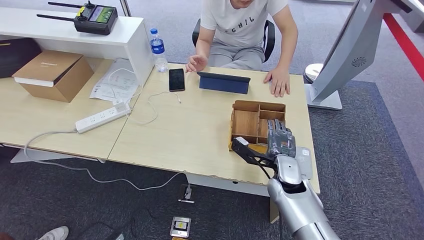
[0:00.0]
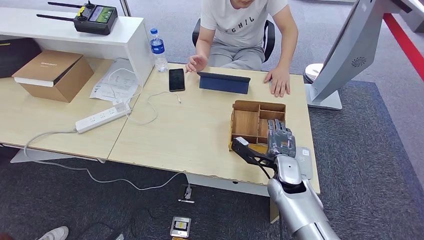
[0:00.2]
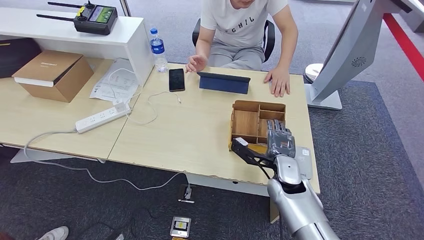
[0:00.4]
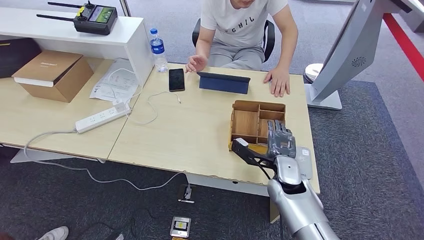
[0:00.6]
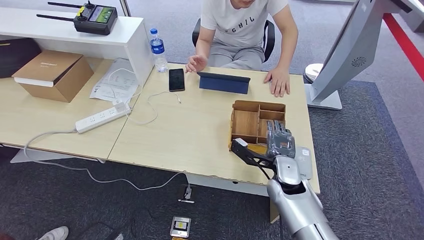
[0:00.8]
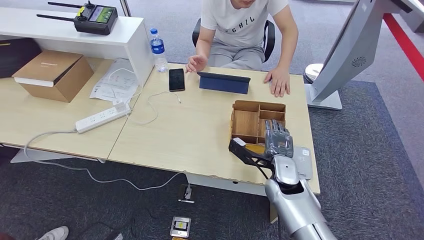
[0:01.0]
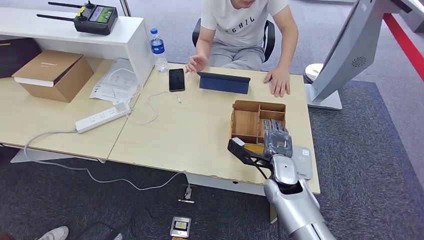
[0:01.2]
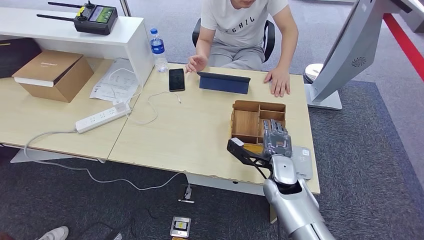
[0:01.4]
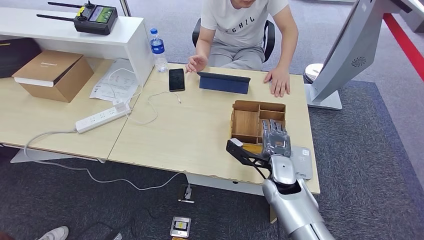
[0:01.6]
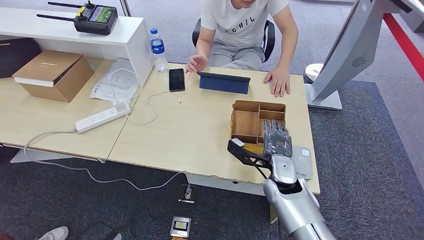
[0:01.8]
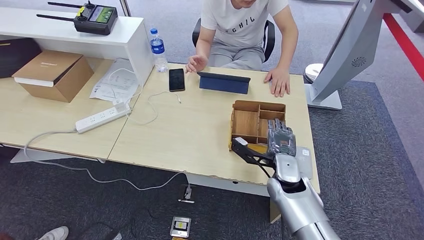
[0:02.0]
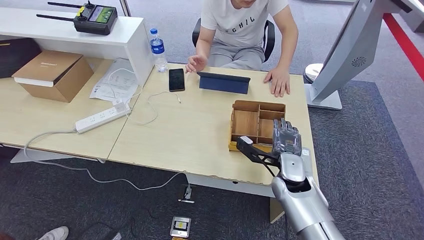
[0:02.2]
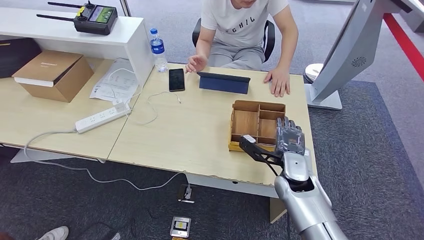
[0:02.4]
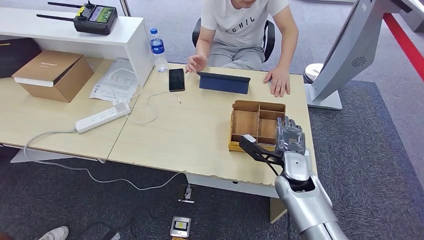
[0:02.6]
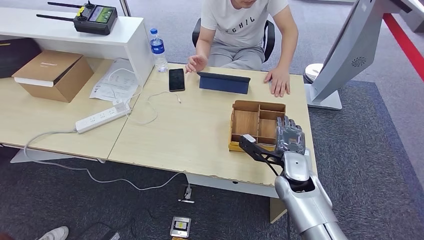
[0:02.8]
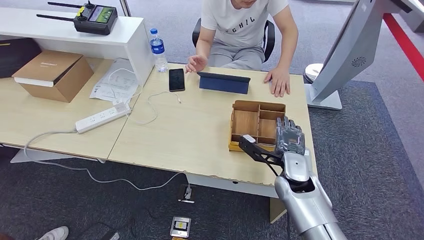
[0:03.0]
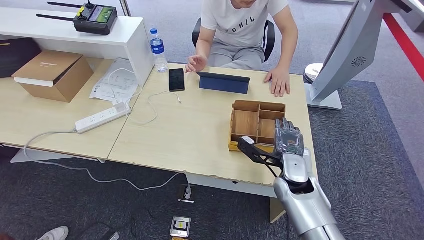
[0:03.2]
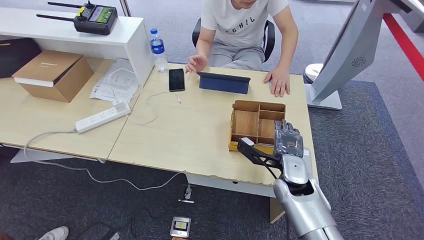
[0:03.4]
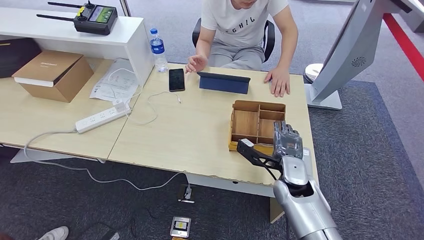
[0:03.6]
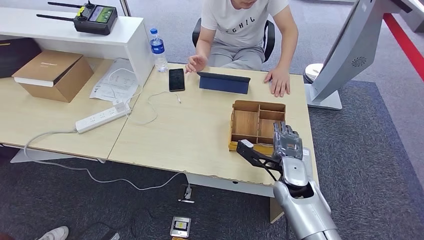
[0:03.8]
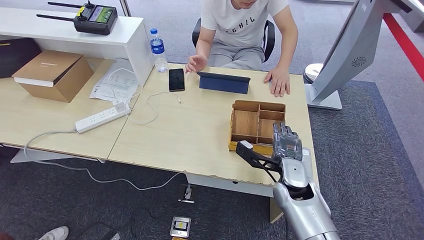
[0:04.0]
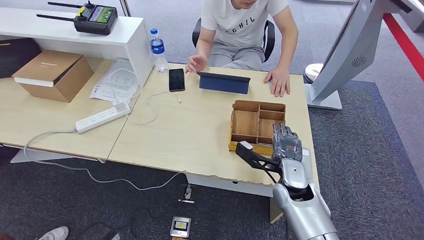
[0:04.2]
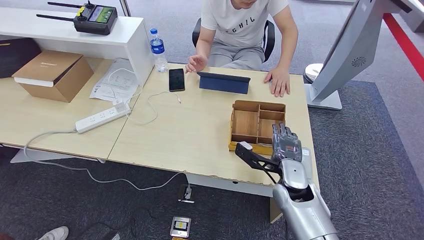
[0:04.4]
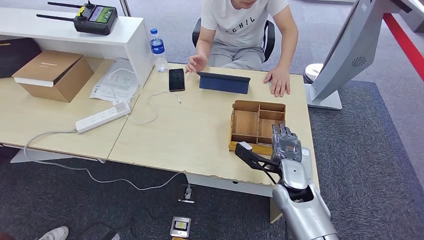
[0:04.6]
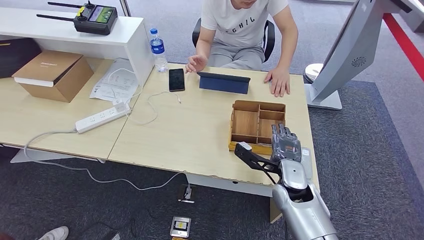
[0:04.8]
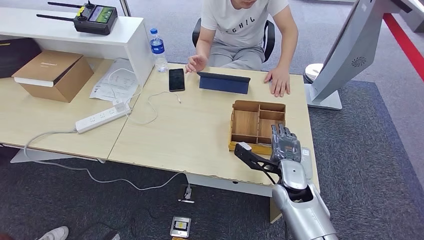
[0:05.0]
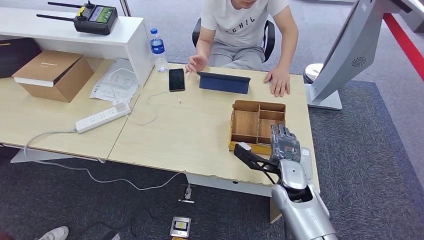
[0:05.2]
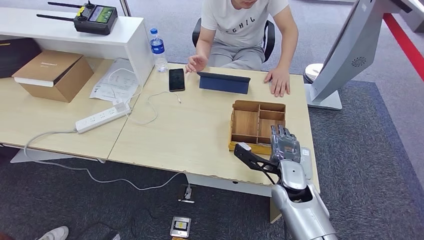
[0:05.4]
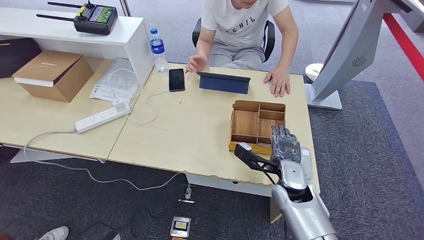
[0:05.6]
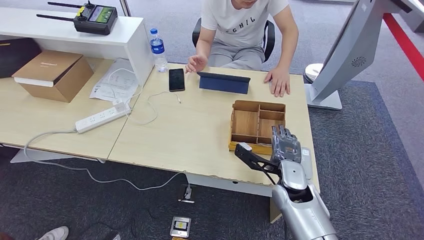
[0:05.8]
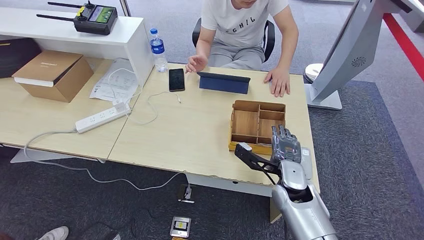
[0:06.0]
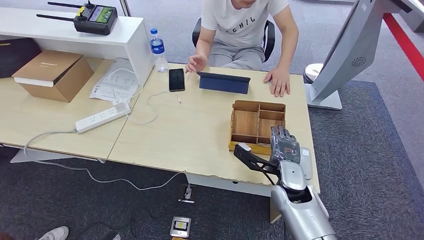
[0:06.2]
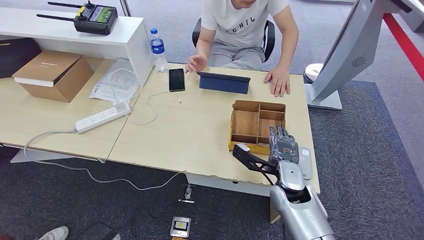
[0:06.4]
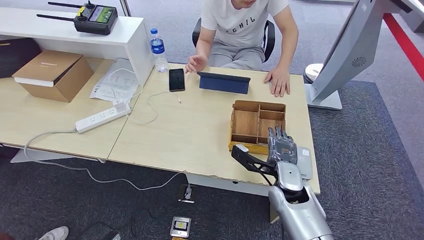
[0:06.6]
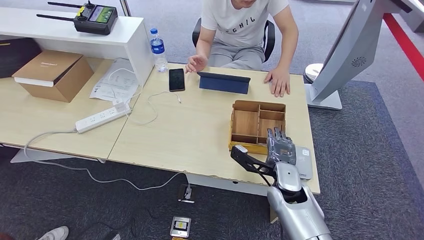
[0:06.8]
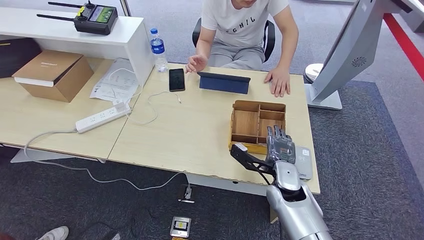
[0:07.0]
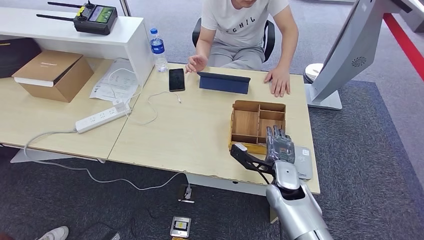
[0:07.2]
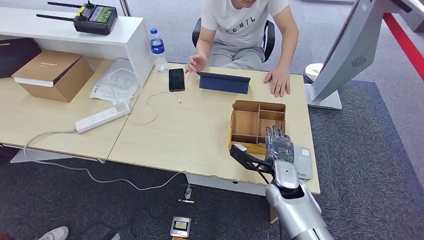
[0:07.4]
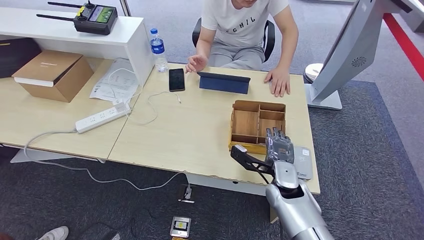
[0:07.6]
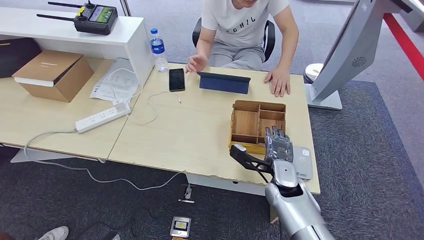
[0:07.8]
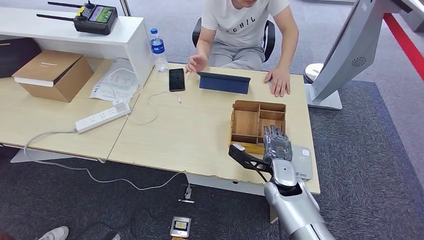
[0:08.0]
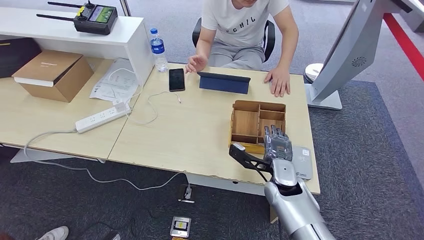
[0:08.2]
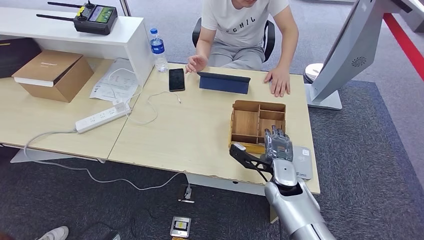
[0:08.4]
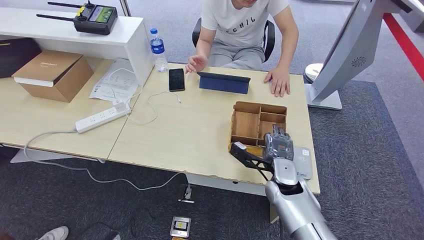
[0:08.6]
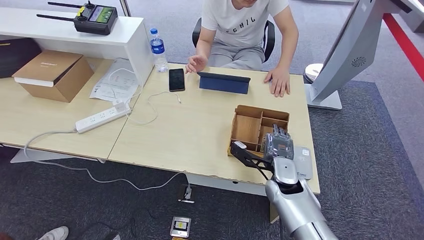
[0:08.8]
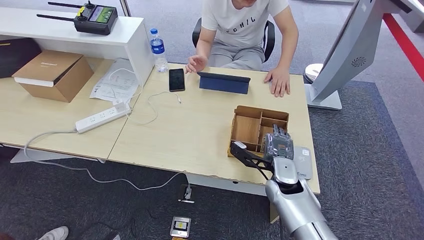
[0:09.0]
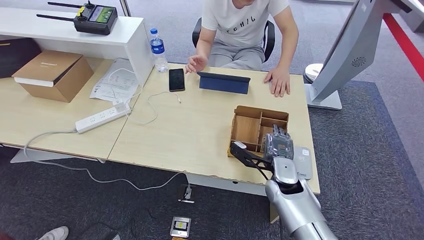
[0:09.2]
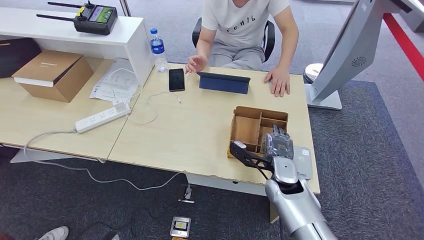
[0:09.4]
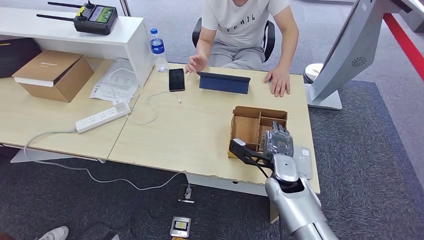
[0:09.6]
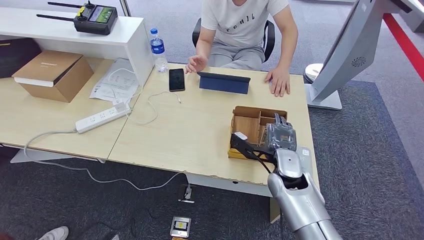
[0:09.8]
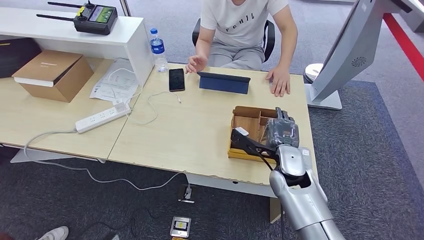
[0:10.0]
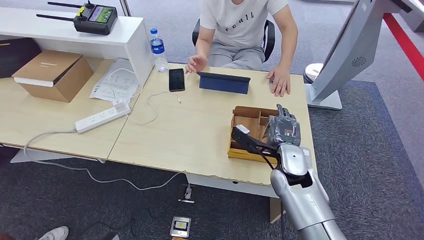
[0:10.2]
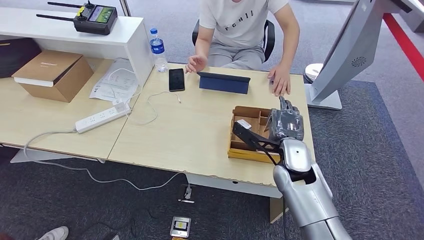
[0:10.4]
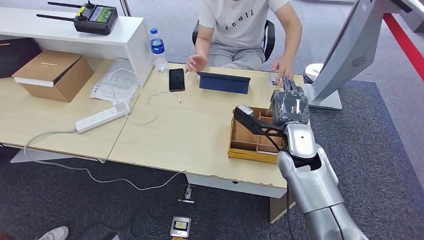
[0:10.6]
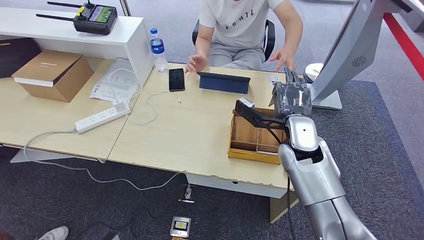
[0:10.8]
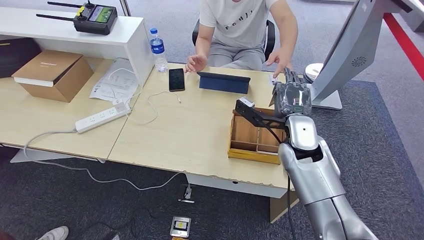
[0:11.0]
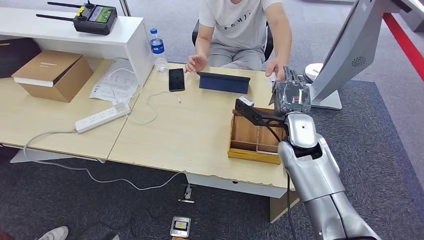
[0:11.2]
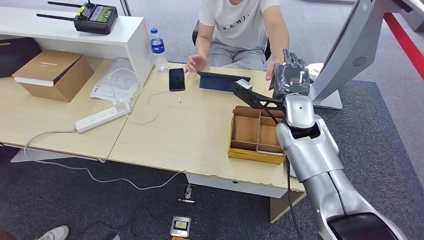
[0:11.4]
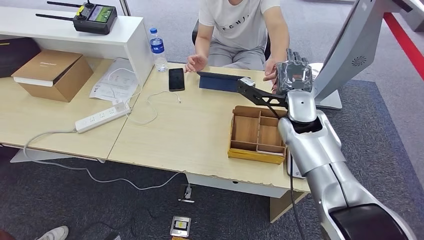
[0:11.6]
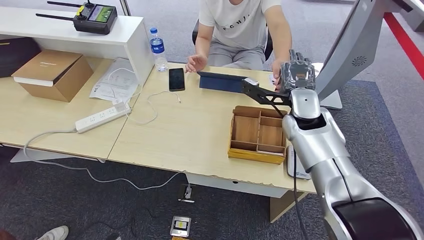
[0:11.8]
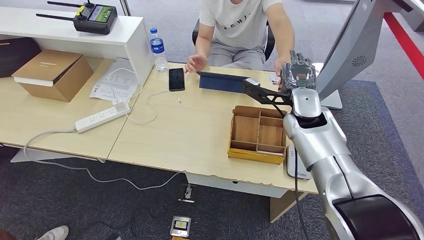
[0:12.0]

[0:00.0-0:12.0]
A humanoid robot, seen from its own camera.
Step, 0:00.0 to 0:10.8: Pick up the room key from the key card box.
0:00.0 to 0:04.4: The hands move only a little.
0:04.4 to 0:06.0: The two hands keep their place.
0:06.0 to 0:07.6: The hands stay close to where they were, moving slightly.
0:07.6 to 0:09.0: The two hands keep their place.
0:09.0 to 0:10.4: The right hand goes some 5 cm upward.
0:10.4 to 0:12.0: The right hand heads upward and forward, covering about 15 cm.

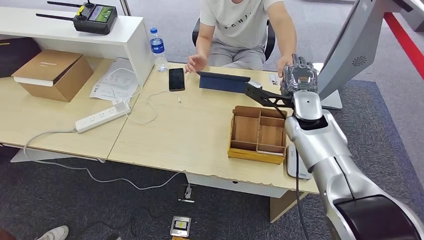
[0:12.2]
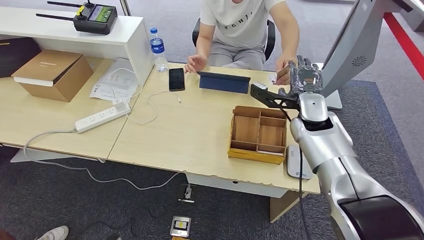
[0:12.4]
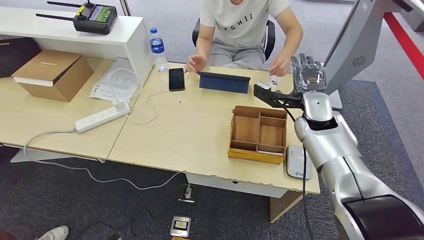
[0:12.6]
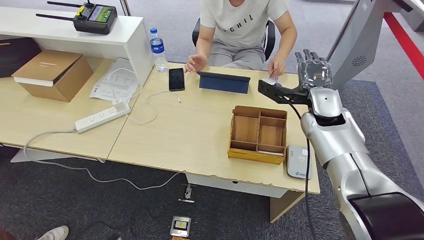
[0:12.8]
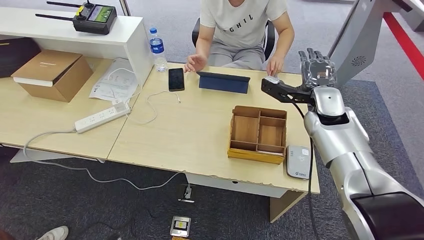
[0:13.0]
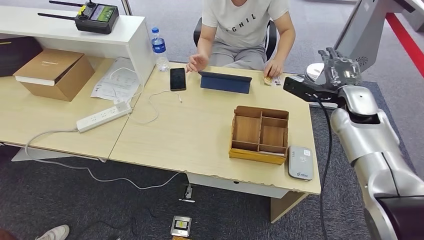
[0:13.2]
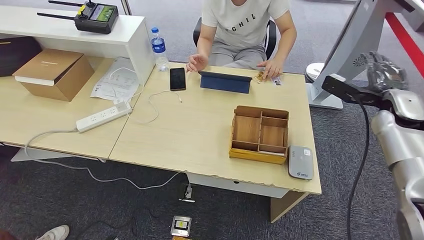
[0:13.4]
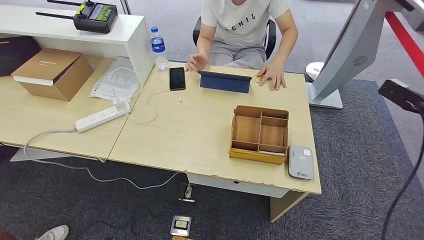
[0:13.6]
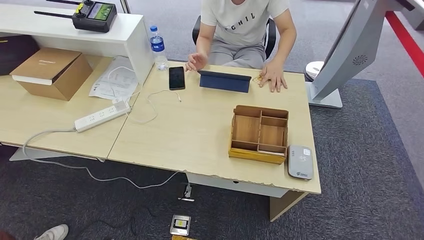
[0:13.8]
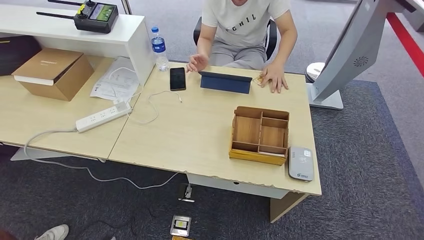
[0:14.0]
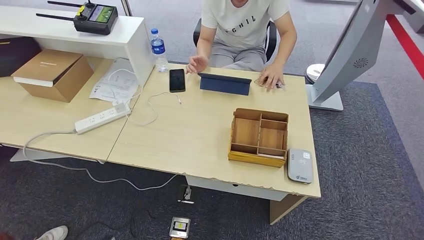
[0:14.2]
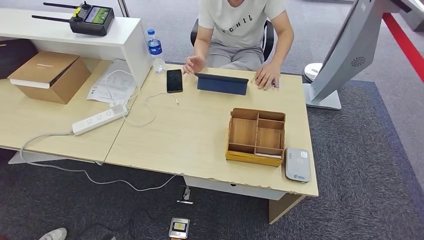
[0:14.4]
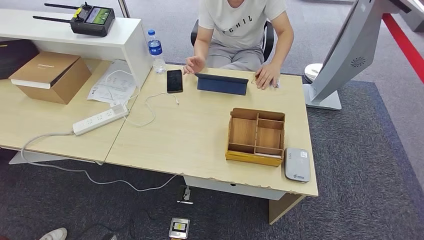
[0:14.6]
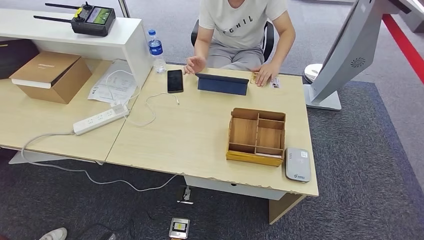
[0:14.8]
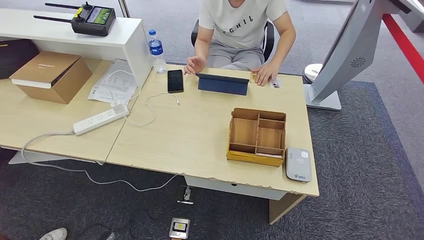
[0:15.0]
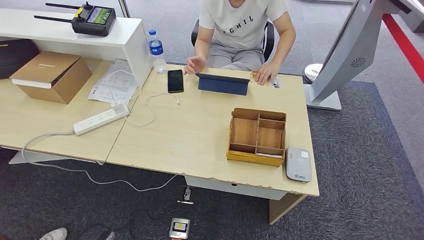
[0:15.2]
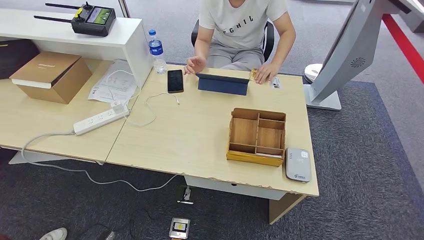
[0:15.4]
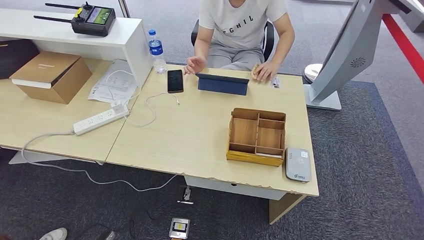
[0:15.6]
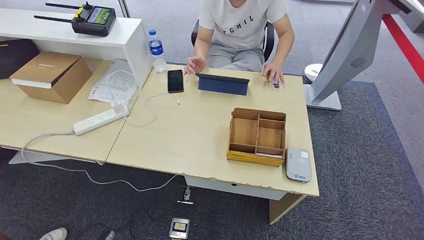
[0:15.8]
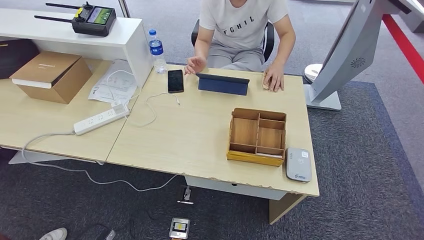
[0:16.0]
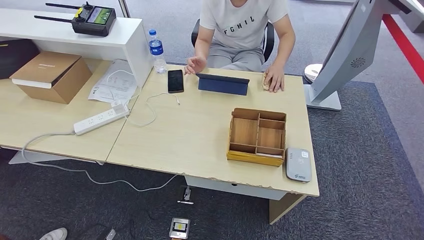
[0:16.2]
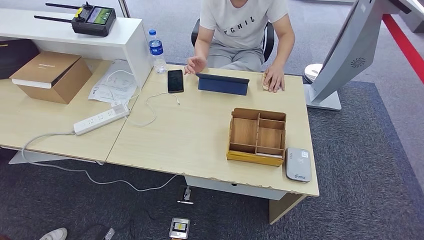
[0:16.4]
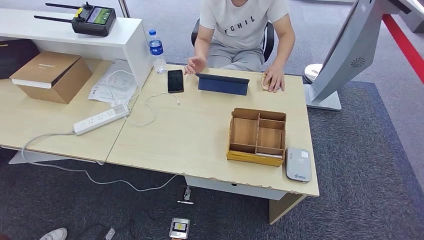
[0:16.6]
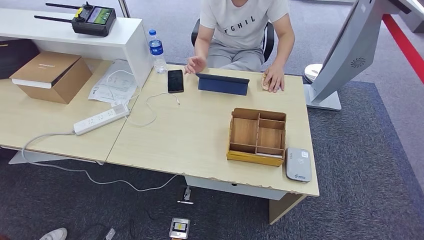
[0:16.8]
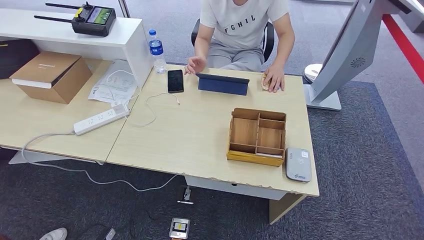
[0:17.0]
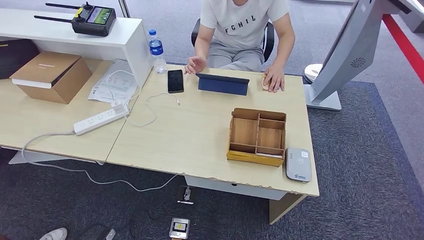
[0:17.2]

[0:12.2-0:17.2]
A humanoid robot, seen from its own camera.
Step, 0:12.2 to 0:17.2: Hand the room key to the person.
0:12.2 to 0:13.8: The right hand moves to the right, about 40 cm.
0:13.8 to 0:15.6: The right hand heads downward, backward and to the left, covering approximately 50 cm.
